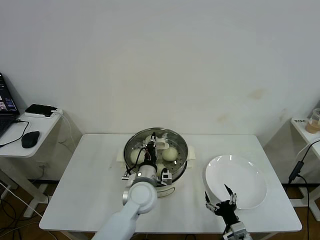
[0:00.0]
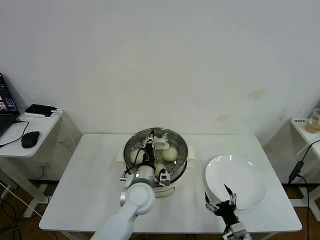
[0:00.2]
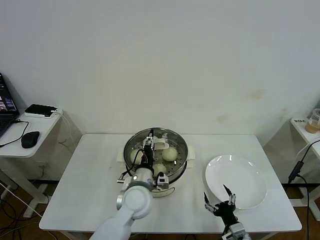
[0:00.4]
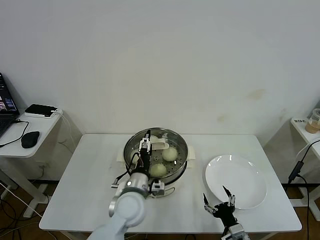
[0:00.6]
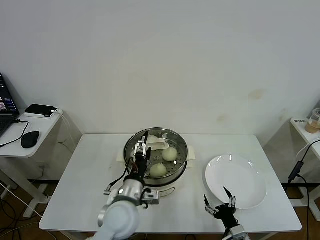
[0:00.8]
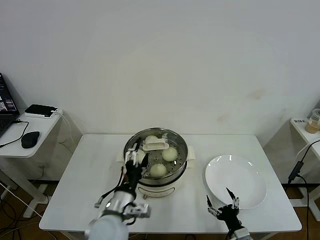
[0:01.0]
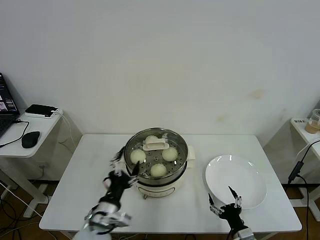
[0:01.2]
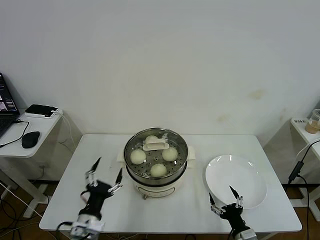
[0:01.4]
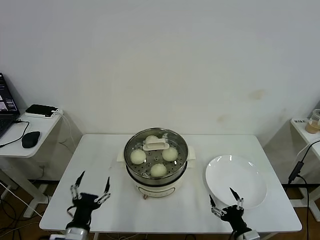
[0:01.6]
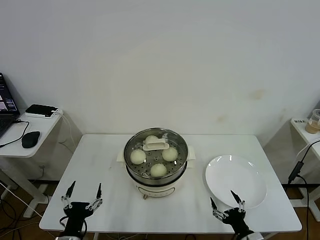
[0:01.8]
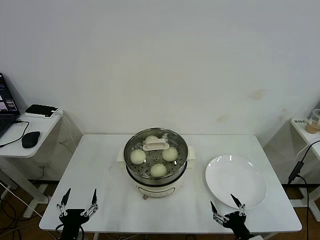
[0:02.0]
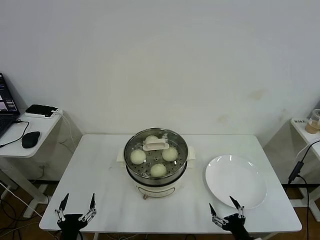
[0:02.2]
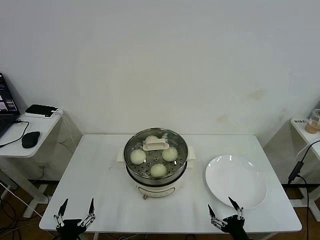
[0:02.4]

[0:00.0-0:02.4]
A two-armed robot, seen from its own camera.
Task of the whole recording: take steamed baozi put them in steamer then cover it.
0:00.0 to 0:01.2: The left gripper travels backward and to the left by roughly 15 cm, and opens its fingers.
0:01.2 to 0:02.4: The left gripper is displaced backward, to the left and downward by approximately 20 cm.

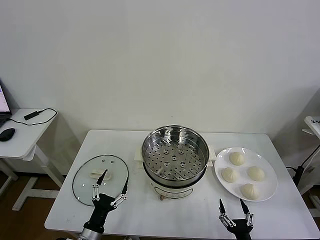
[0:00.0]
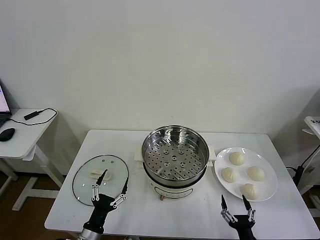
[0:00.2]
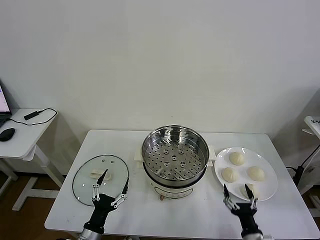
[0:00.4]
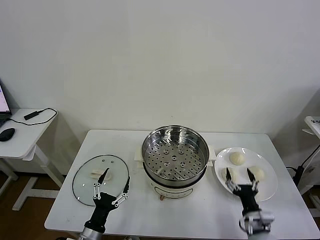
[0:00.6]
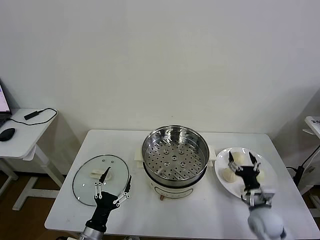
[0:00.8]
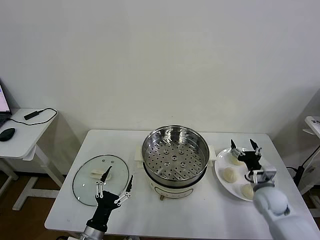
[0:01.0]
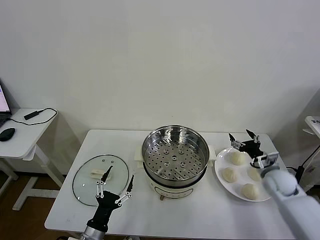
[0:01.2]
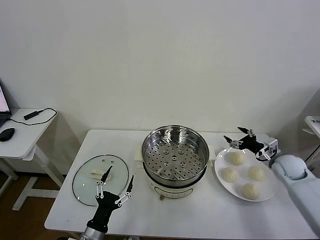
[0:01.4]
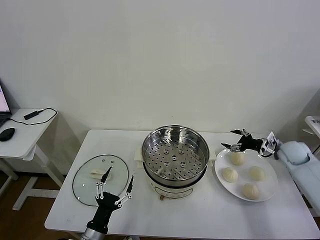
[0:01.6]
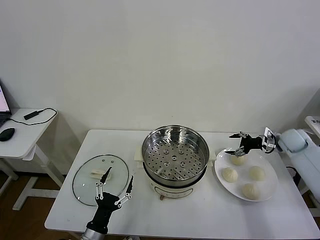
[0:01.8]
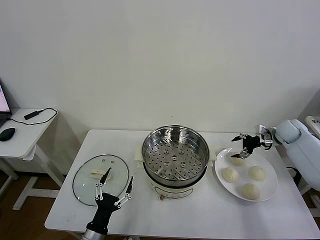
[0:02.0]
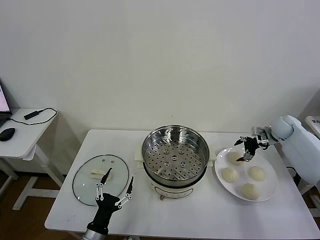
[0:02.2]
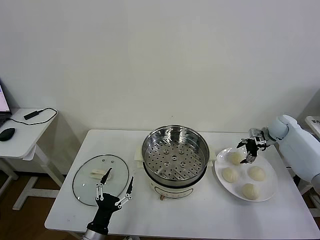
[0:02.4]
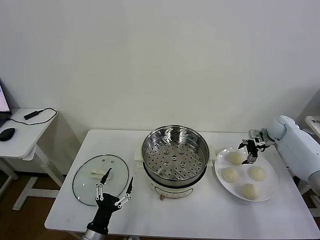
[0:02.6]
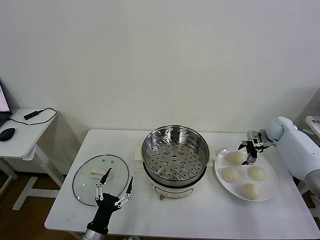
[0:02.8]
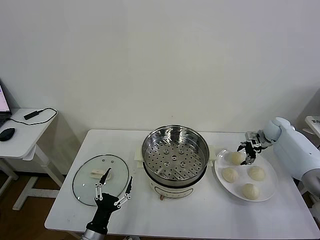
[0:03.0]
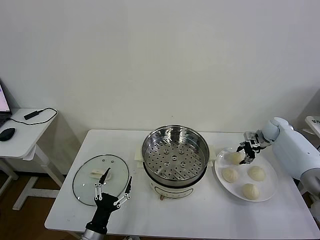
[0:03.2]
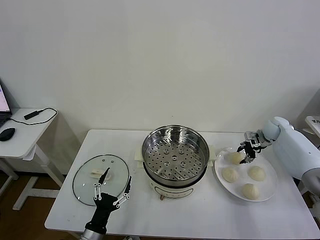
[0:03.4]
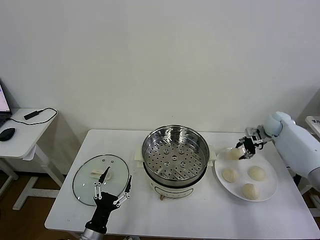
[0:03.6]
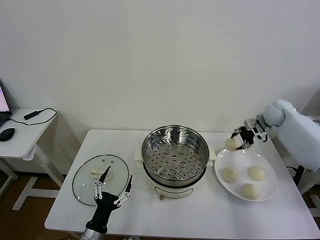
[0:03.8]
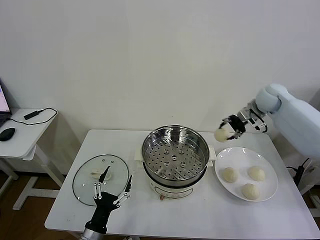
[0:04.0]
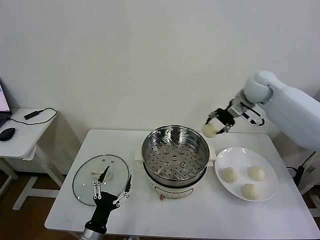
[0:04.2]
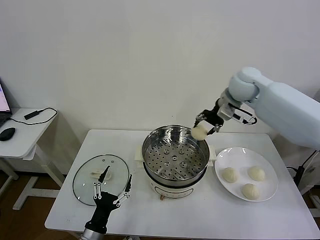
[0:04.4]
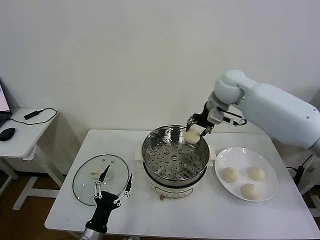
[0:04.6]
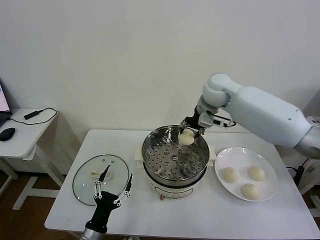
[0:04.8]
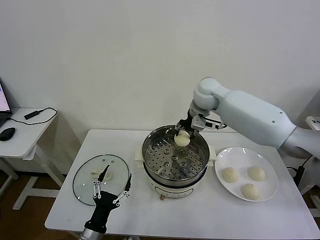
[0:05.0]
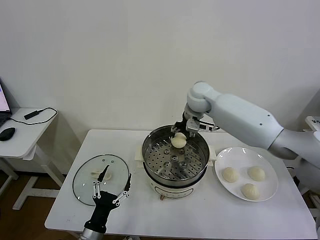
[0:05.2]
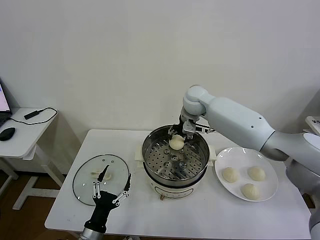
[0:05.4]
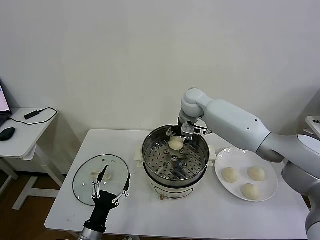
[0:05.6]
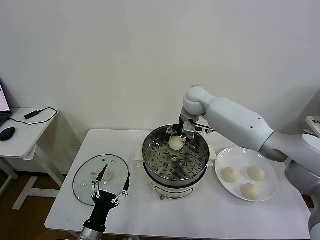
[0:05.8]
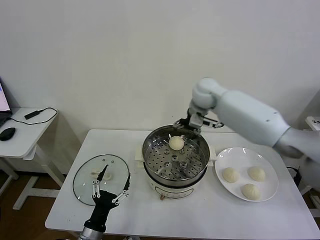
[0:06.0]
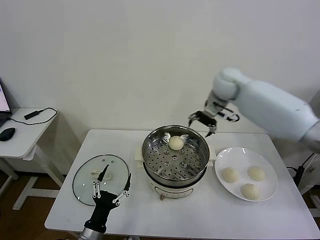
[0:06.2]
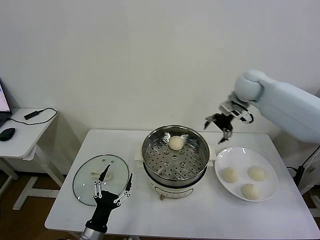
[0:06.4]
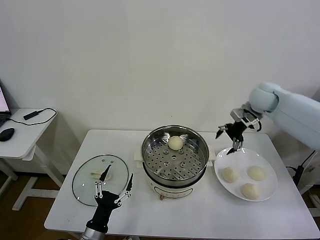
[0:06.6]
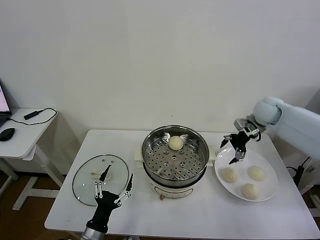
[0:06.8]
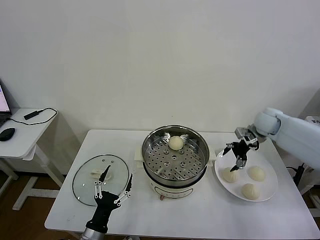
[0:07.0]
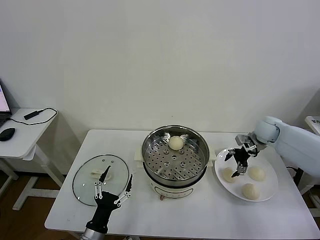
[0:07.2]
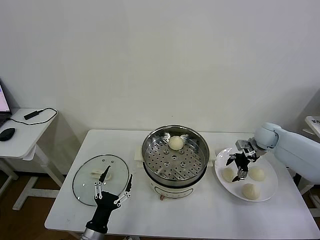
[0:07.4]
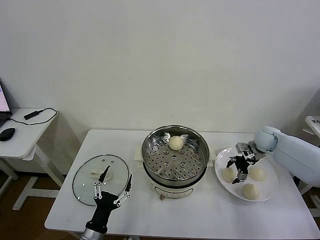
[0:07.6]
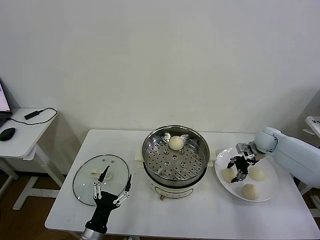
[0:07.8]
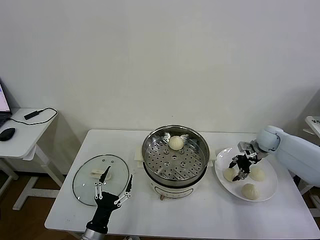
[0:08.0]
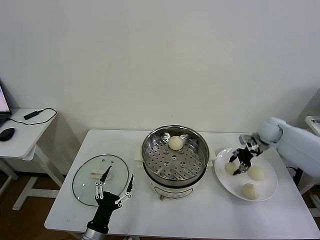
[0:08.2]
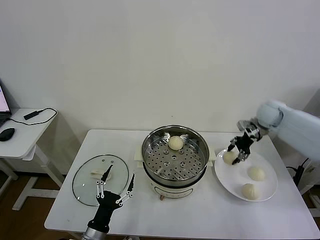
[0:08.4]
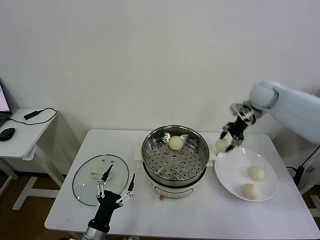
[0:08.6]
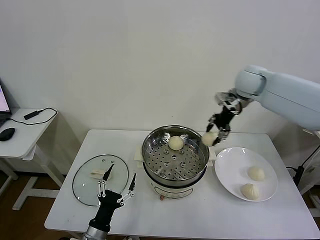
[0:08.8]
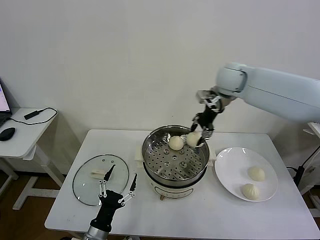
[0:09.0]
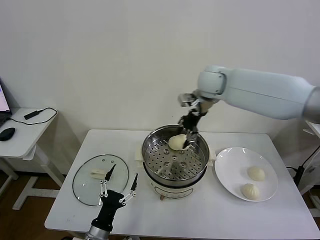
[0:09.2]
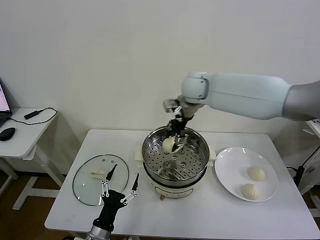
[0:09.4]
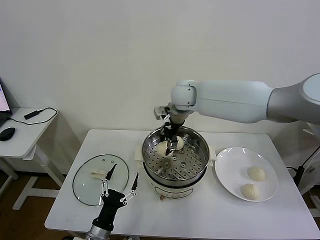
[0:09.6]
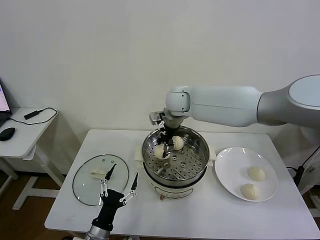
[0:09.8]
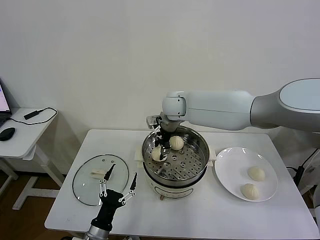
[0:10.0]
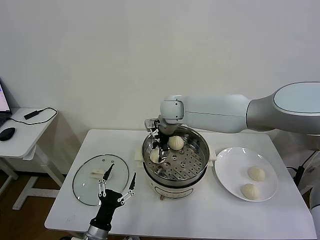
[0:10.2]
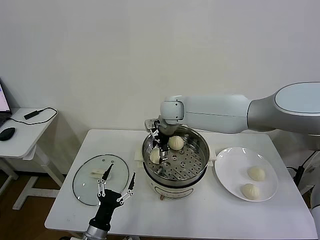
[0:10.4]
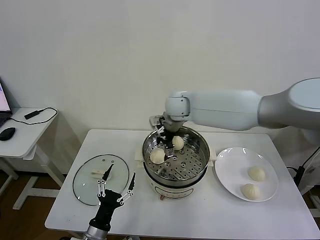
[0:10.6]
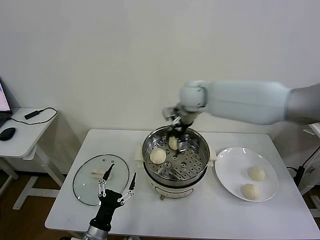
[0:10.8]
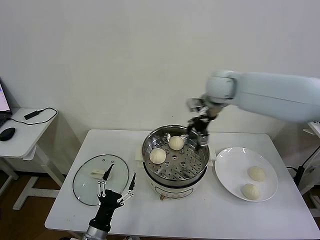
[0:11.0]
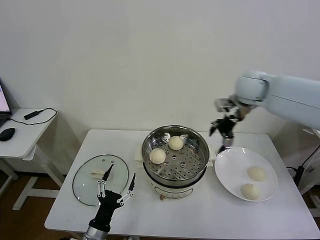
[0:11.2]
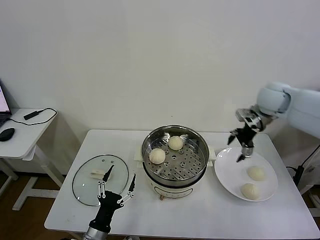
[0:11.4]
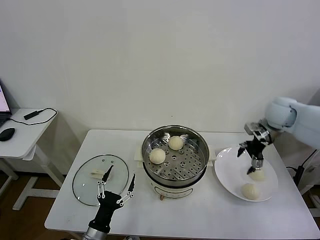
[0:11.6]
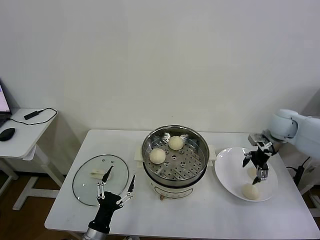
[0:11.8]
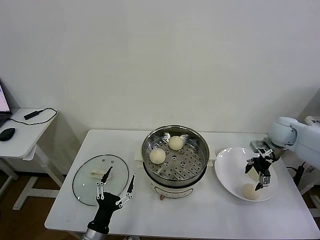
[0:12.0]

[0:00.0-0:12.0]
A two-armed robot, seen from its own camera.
Task of the whole recording: take steamed baozi put them in steamer then cover it.
Step, 0:00.0 to 0:03.2: Grasp the baozi in the plate with right gripper.
Step, 0:03.4 to 0:05.6: Place the baozi on the steamer with right gripper.
Step, 0:05.8 to 0:07.8: Grasp the baozi in the plate with right gripper.
Step, 0:08.2 to 0:10.2: Place the baozi on the steamer with right gripper.
0:01.6 to 0:03.0: The right gripper goes about 5 cm forward, and closes up.
0:03.0 to 0:04.4: The right gripper moves to the left and upward, about 35 cm.
0:04.4 to 0:06.0: The right gripper travels to the left and back again, about 10 cm each way, and opens.
0:06.0 to 0:07.6: The right gripper goes some 30 cm downward and to the right, and closes.
0:07.6 to 0:09.0: The right gripper travels to the left and upward by roughly 35 cm, and closes up.
0:09.0 to 0:10.4: The right gripper heads to the left and downward, covering approximately 15 cm, and opens.
0:10.4 to 0:12.0: The right gripper heads to the right, covering about 40 cm.

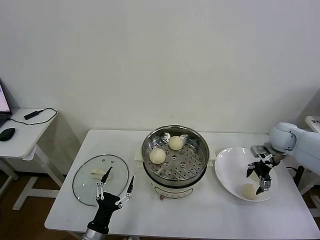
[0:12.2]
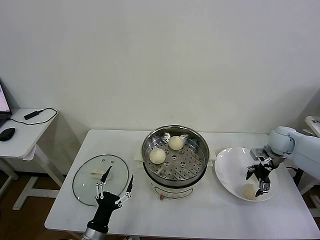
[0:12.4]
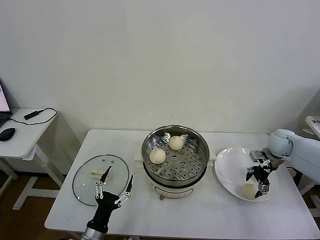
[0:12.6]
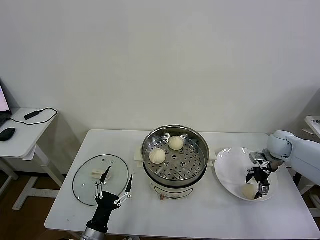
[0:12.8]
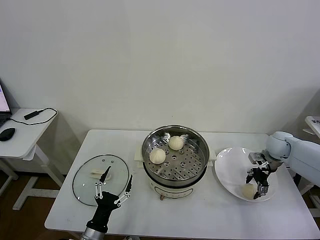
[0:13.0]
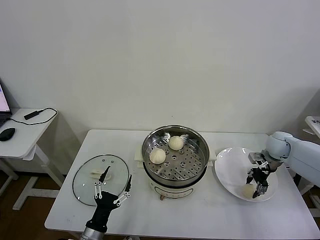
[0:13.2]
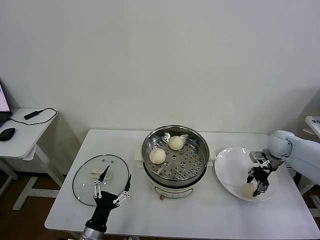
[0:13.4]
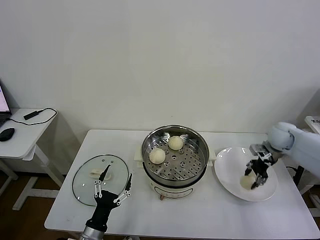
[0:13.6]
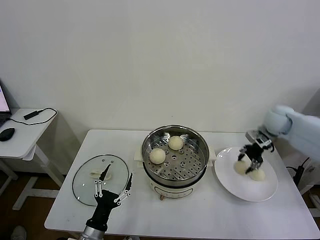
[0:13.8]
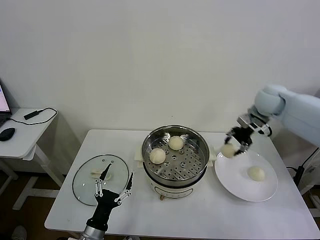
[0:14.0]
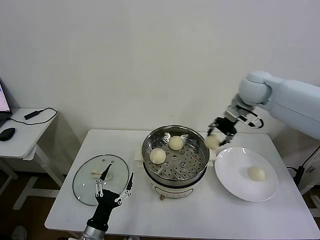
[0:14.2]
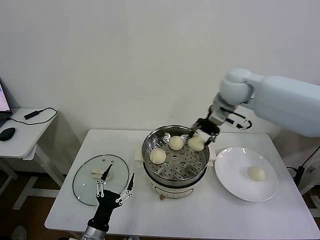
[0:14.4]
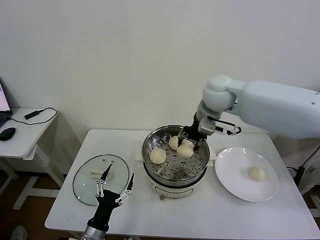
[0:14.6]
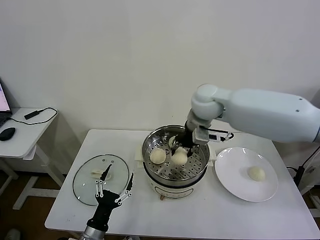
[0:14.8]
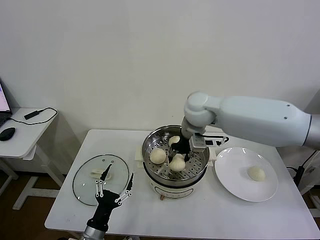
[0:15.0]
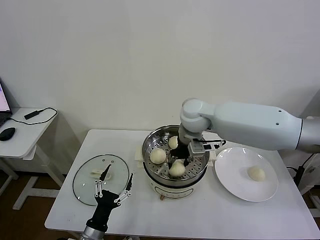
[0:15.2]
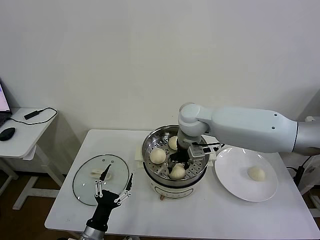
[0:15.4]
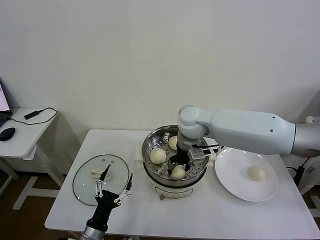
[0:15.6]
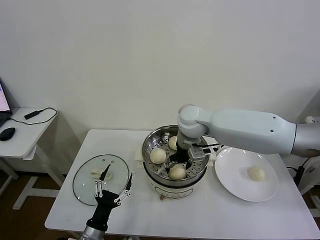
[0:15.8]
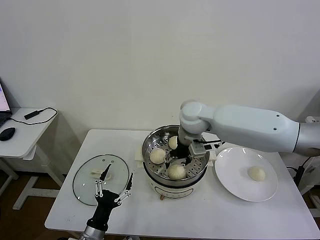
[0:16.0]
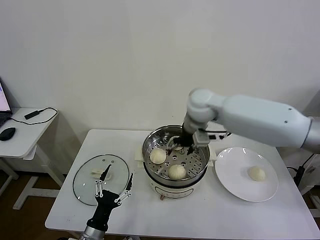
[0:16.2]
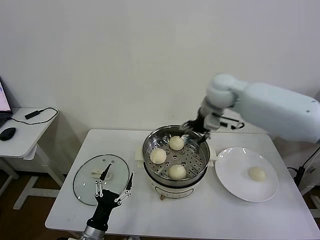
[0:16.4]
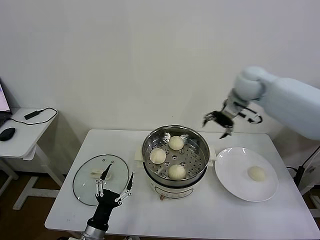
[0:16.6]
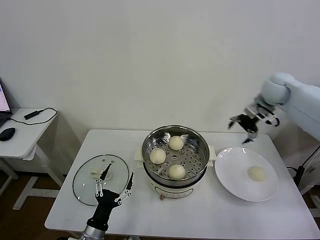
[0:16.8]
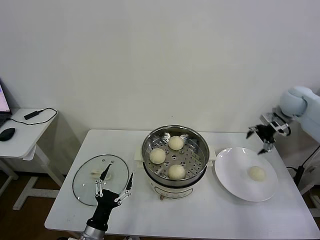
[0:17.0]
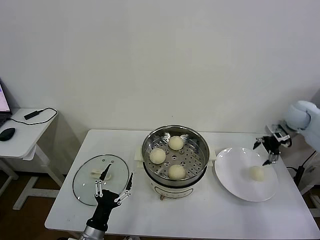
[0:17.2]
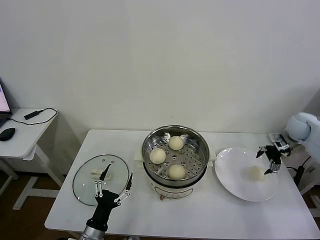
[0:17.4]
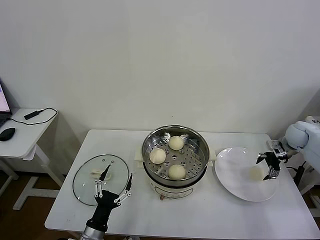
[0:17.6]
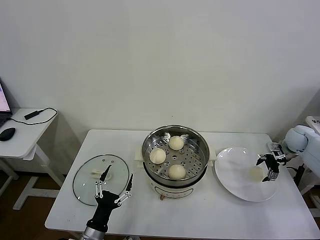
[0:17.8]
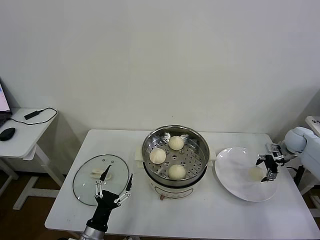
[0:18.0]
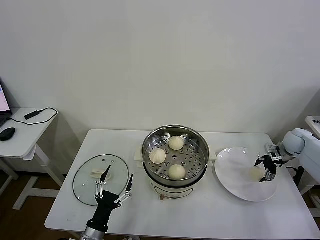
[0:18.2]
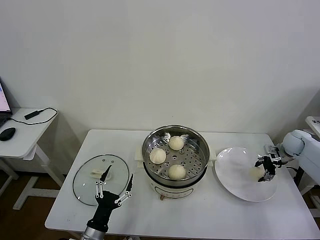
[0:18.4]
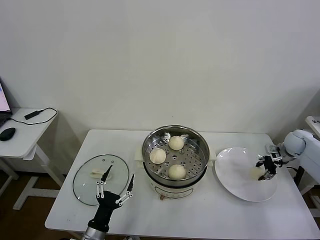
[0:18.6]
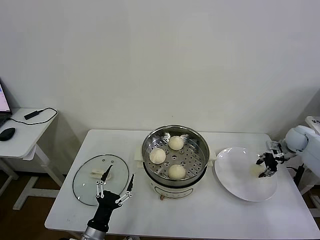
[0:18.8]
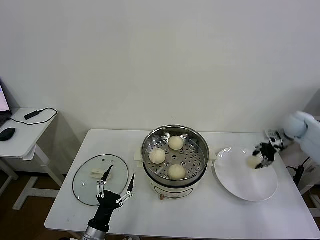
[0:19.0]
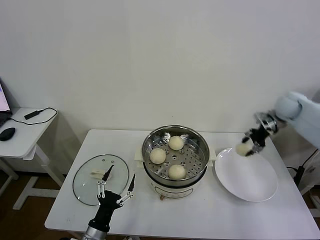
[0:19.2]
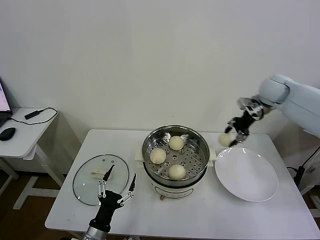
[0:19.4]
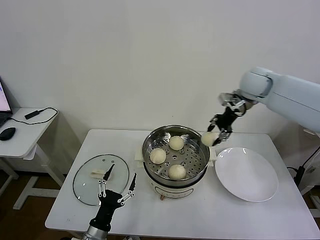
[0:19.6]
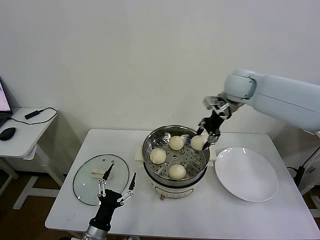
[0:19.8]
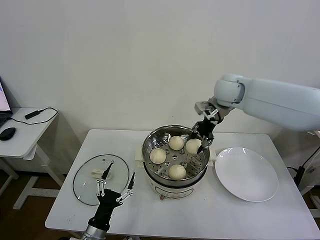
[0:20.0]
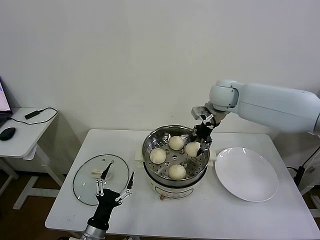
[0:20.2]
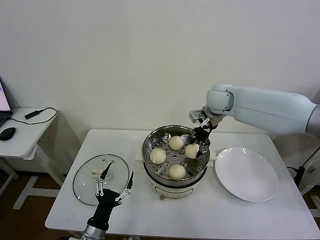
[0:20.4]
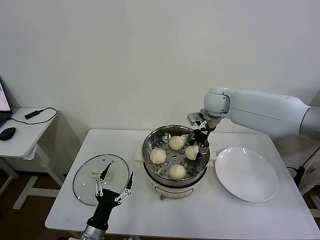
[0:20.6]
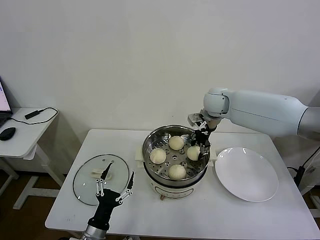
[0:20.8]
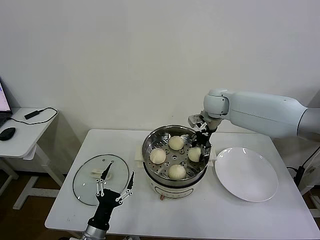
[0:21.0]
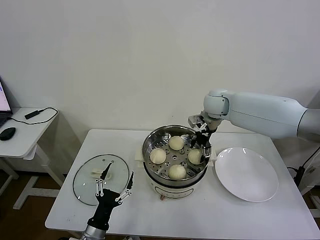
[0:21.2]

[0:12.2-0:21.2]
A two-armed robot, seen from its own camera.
Task of the whole recording: take steamed baozi put them in steamer then cover it.
Step, 0:13.4 to 0:15.8: Place the baozi on the steamer with right gripper.
Step, 0:16.0 to 0:18.4: Grasp the baozi in the plate with right gripper.
0:12.2 to 0:13.8: The right gripper moves upward and to the left, about 10 cm, and closes up.
0:13.8 to 0:15.2: The right gripper travels to the left by some 30 cm.
0:15.2 to 0:16.6: The right gripper moves to the right, roughly 25 cm, and opens its fingers.
0:16.6 to 0:18.2: The right gripper heads downward and to the right, covering about 30 cm.
0:18.2 to 0:19.8: The right gripper is displaced to the left and upward by about 35 cm, and closes its fingers.
0:19.8 to 0:21.2: The right gripper travels downward by some 5 cm, and opens its fingers.
